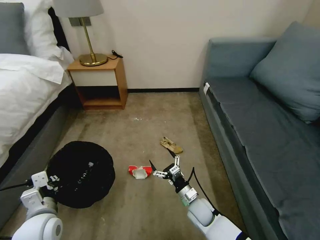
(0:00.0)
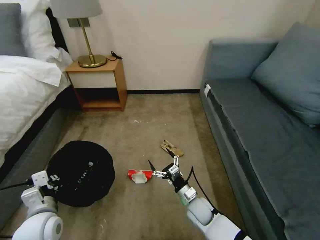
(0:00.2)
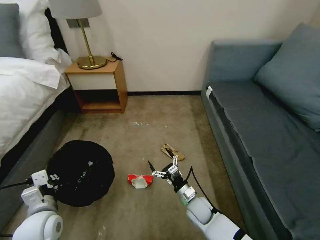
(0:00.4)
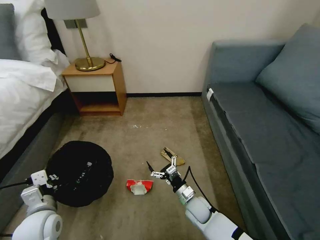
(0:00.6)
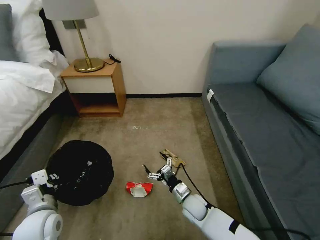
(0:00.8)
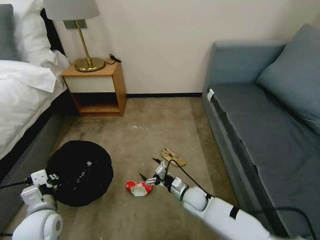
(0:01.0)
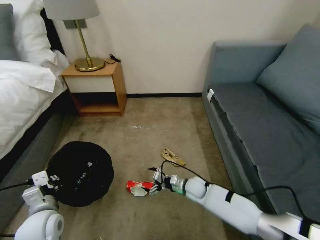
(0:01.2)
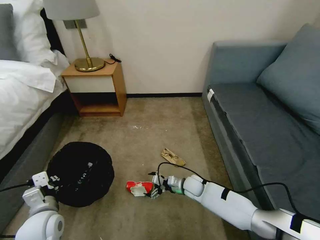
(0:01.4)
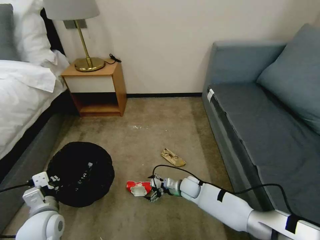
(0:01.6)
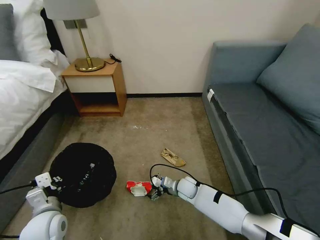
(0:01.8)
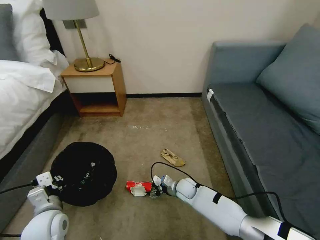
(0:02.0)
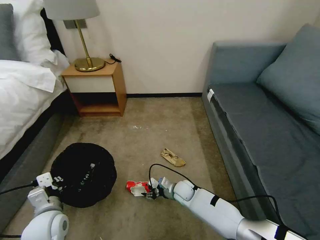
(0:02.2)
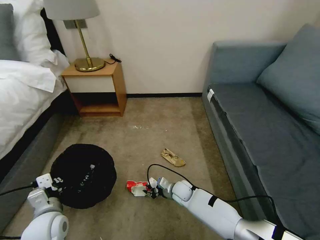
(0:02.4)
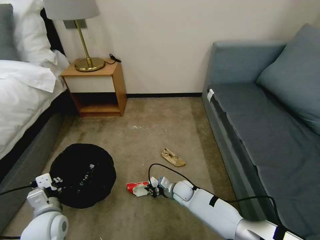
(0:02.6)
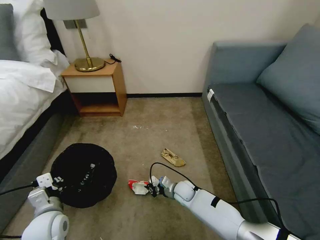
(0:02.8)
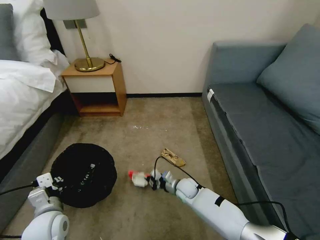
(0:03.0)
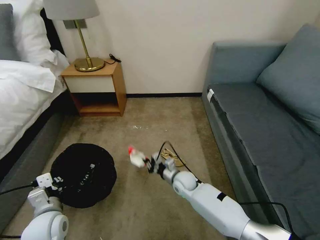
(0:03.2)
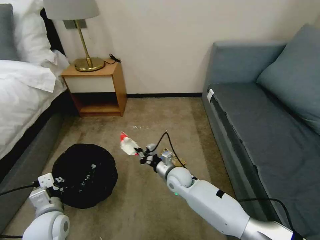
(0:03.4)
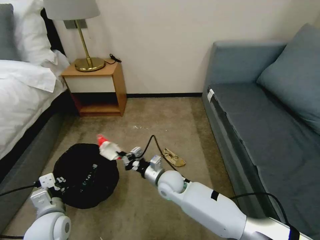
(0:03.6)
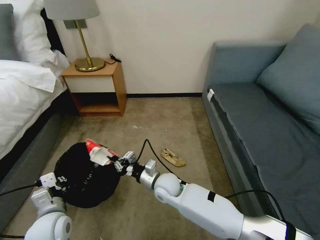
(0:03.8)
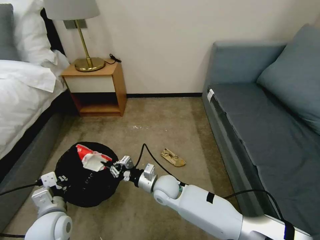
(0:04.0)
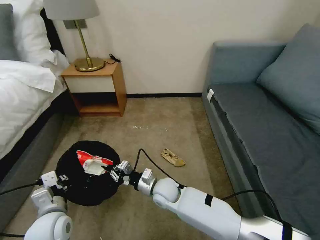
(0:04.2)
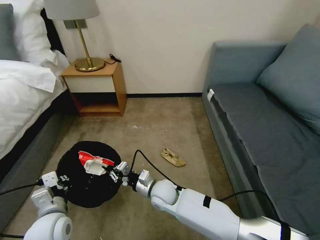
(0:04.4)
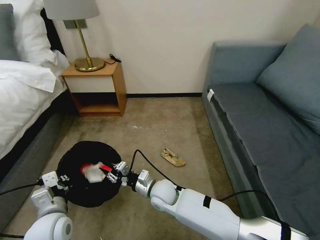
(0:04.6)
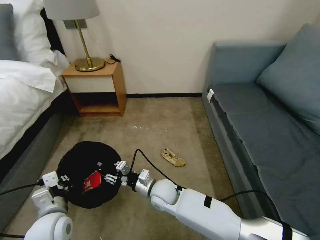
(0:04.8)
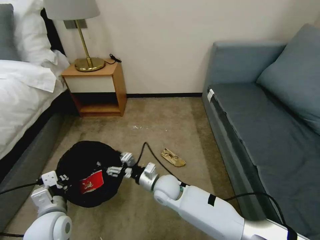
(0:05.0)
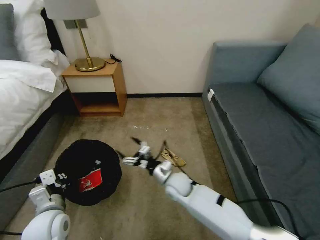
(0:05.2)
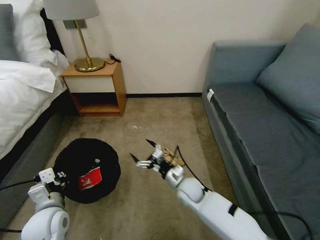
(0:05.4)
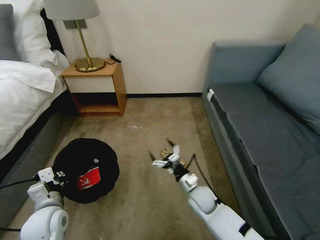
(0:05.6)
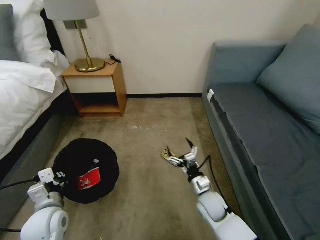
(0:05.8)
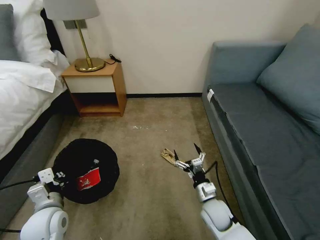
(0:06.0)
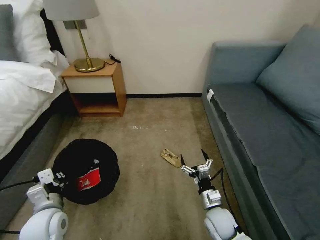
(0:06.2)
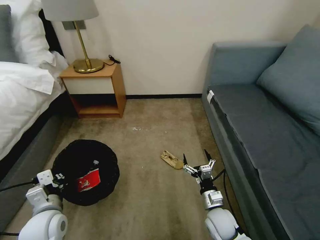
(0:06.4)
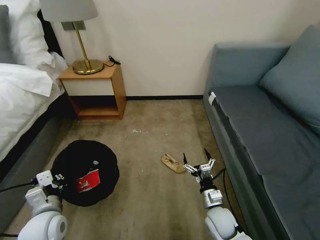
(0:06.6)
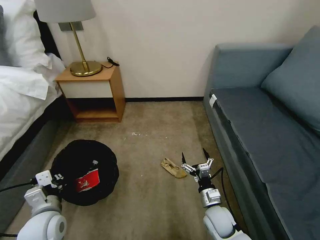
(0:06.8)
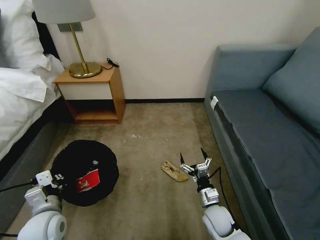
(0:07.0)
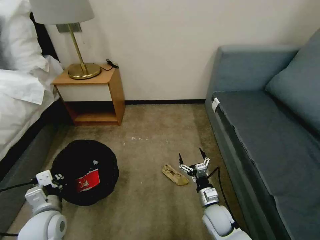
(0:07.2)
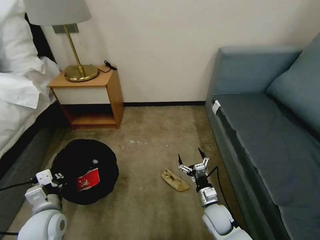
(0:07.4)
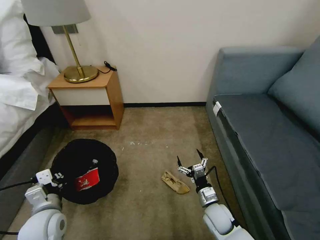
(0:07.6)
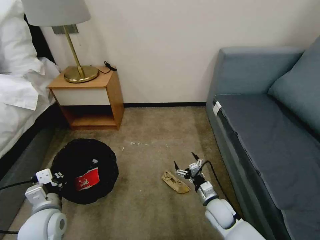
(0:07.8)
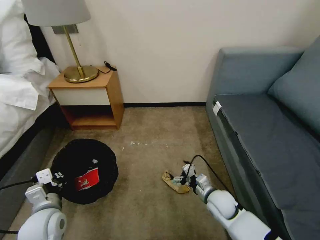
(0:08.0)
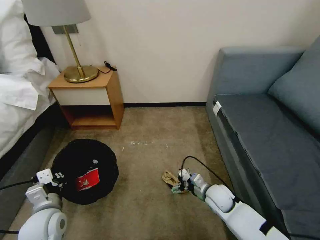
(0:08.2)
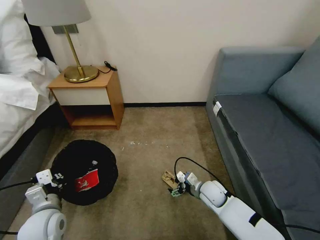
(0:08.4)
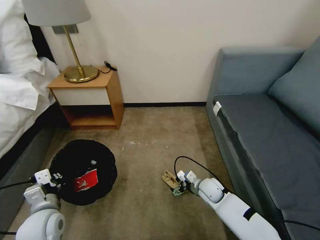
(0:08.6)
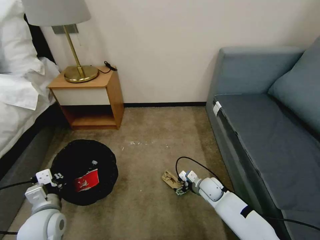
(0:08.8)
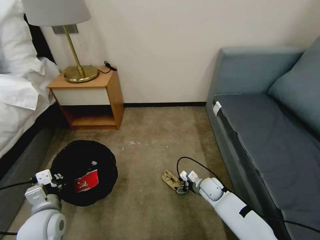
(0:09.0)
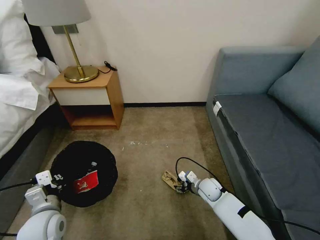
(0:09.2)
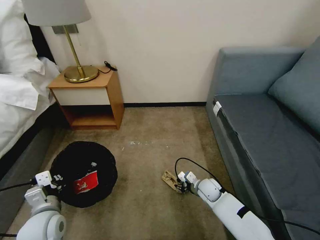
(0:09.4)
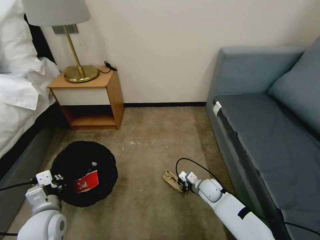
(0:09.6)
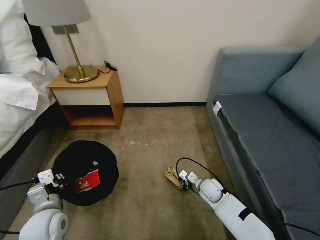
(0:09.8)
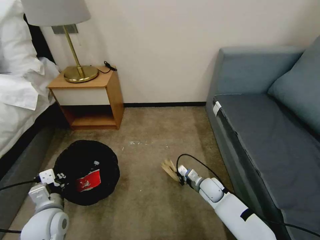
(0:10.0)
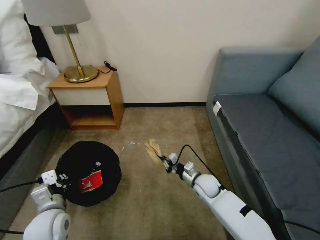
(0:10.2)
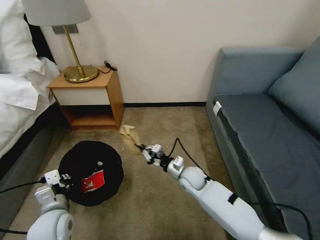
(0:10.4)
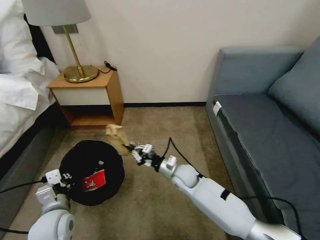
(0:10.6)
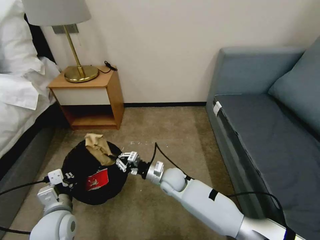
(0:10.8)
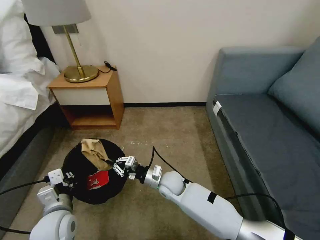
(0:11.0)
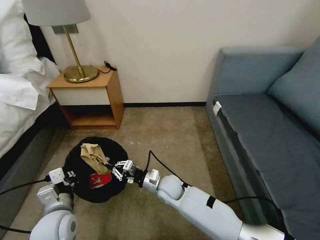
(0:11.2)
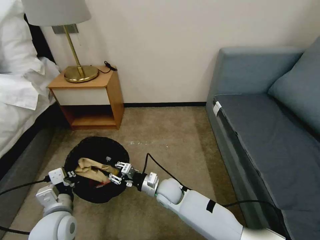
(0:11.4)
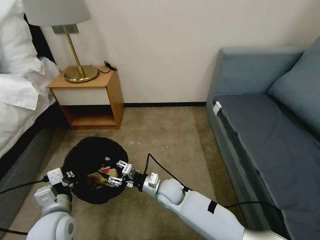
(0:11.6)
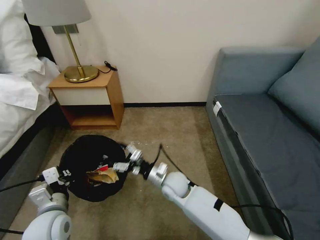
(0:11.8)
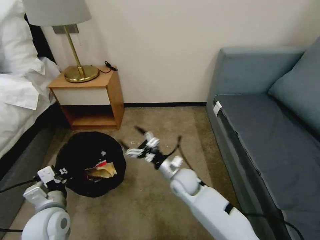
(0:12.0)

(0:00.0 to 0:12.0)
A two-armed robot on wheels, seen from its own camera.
Task of the whole recording: Pick up the trash bin, then pick up the garbage on the floor and place it into the trash bin.
0:00.0 - 0:01.6: The right gripper is displaced forward by approximately 10 cm.
0:01.6 - 0:03.0: The right gripper closes up.
0:03.0 - 0:04.4: The right gripper travels to the left, upward and backward by approximately 15 cm.
0:04.4 - 0:06.0: The right gripper moves to the right, approximately 20 cm, and opens.
0:07.6 - 0:09.0: The right gripper shifts about 10 cm forward.
0:09.0 - 0:10.4: The right gripper shifts approximately 10 cm to the left and upward, and closes.
0:10.4 - 0:12.0: The right gripper opens its fingers.

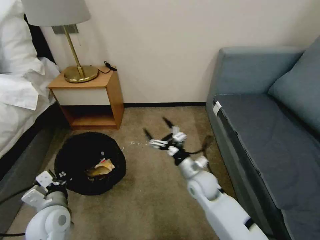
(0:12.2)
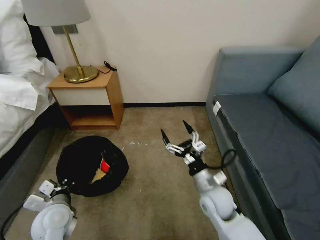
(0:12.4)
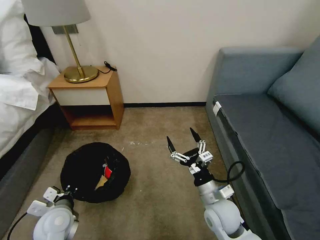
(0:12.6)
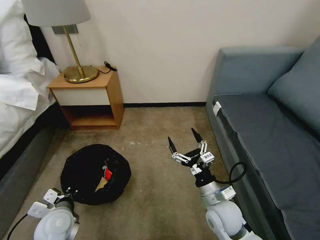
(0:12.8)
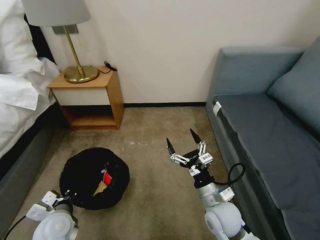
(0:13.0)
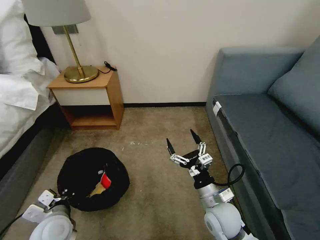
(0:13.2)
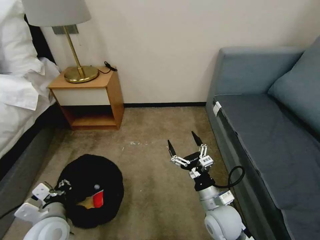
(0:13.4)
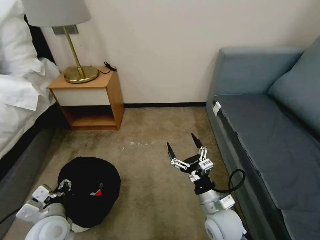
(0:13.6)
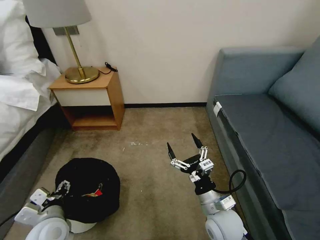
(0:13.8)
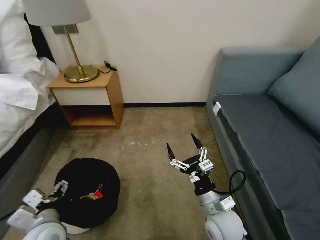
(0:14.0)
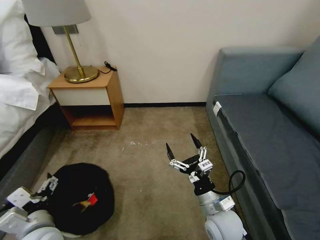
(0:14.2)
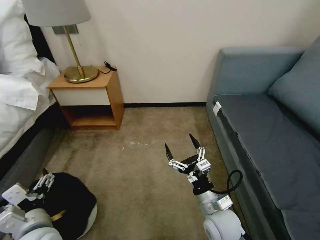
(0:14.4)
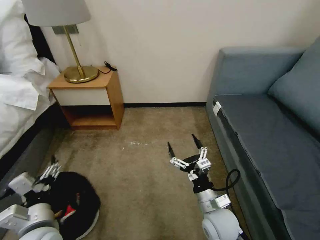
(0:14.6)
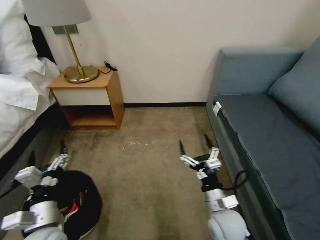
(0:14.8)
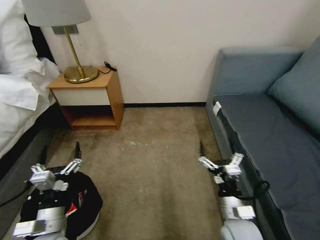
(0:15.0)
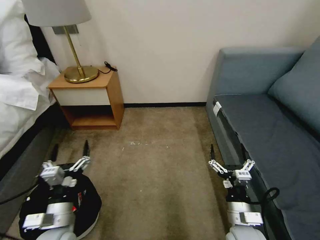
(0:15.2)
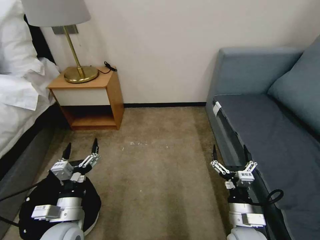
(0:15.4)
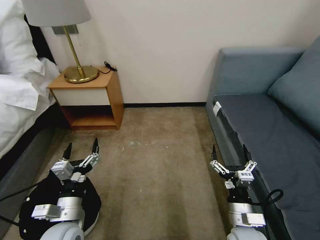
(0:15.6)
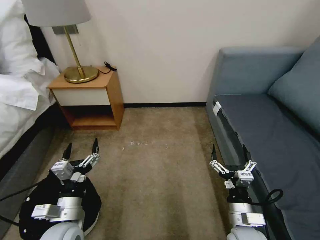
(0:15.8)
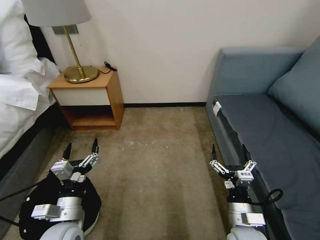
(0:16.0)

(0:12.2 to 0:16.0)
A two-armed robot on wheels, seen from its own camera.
Task of the whole recording: Pick up the trash bin, then pick up the garbage on the floor and place it into the trash bin.
0:12.2 - 0:13.4: The right gripper heads backward, covering some 10 cm.
0:13.4 - 0:14.8: The left gripper opens its fingers.
0:14.8 - 0:16.0: The right gripper ends up approximately 5 cm from where it was.
